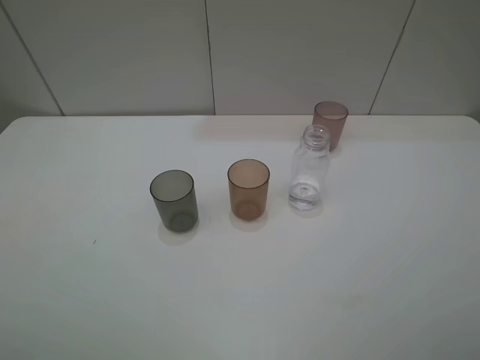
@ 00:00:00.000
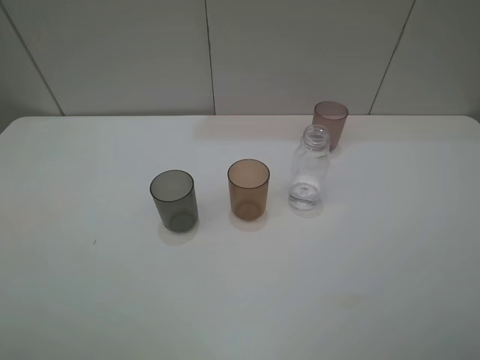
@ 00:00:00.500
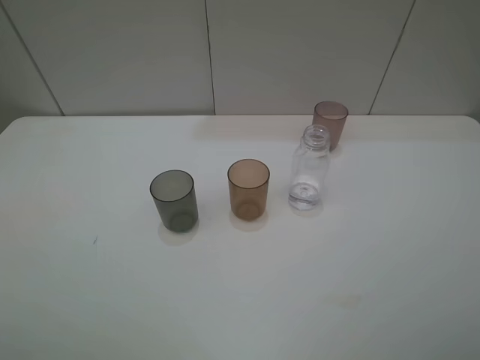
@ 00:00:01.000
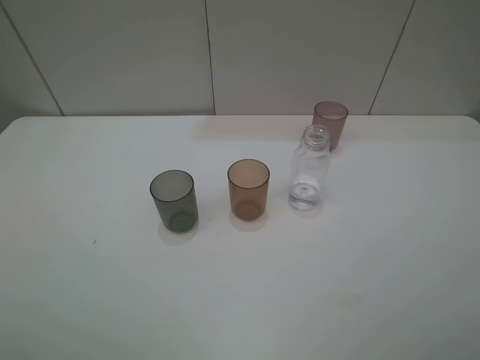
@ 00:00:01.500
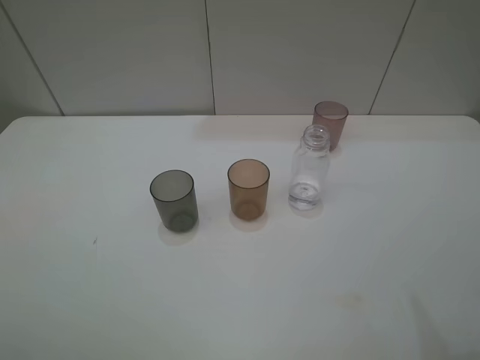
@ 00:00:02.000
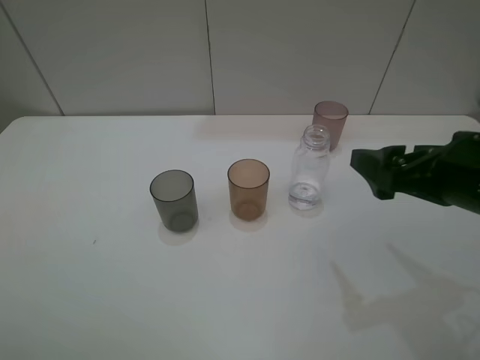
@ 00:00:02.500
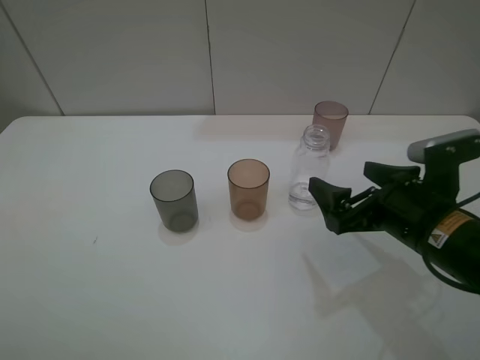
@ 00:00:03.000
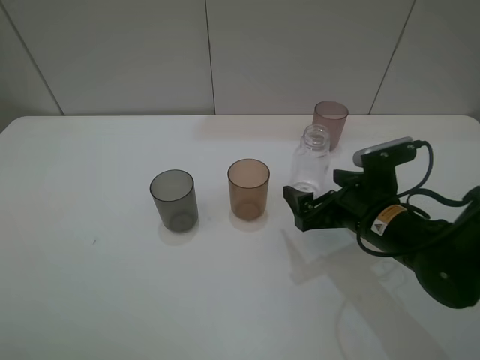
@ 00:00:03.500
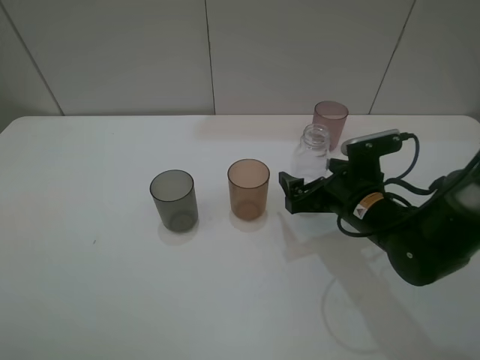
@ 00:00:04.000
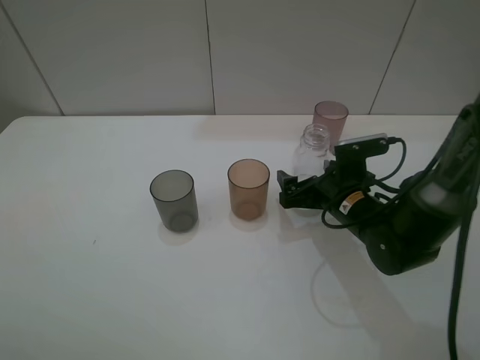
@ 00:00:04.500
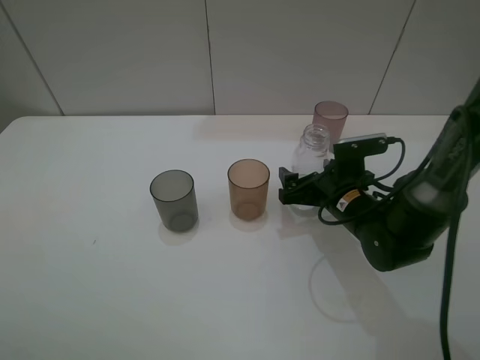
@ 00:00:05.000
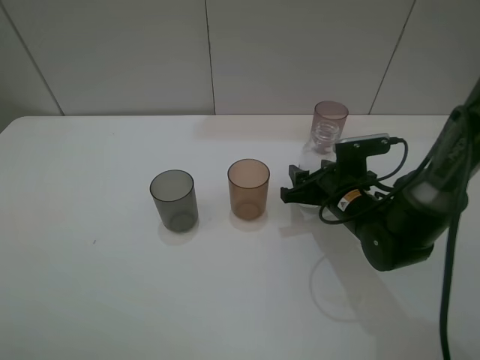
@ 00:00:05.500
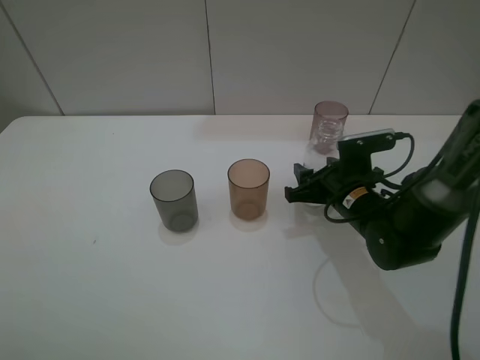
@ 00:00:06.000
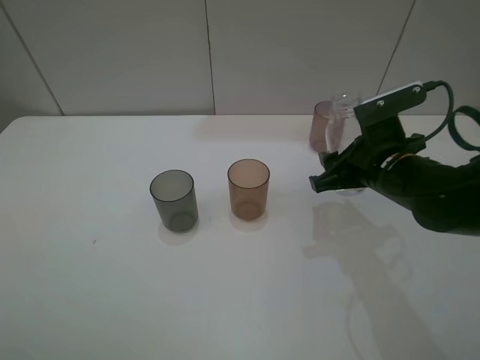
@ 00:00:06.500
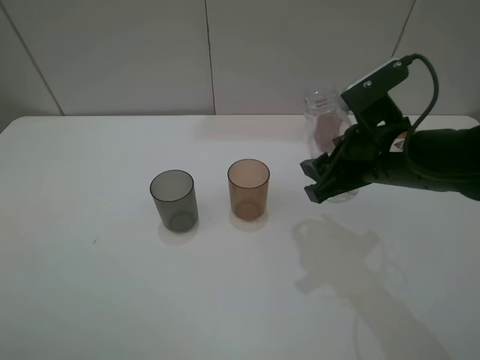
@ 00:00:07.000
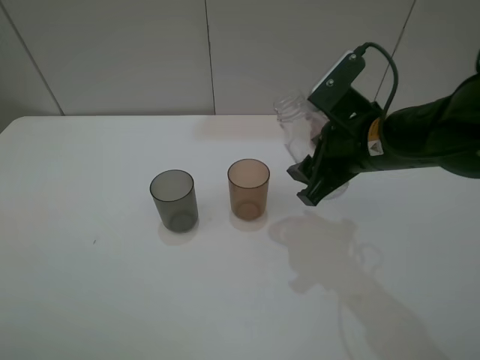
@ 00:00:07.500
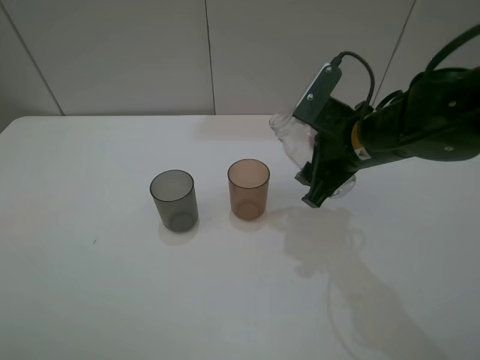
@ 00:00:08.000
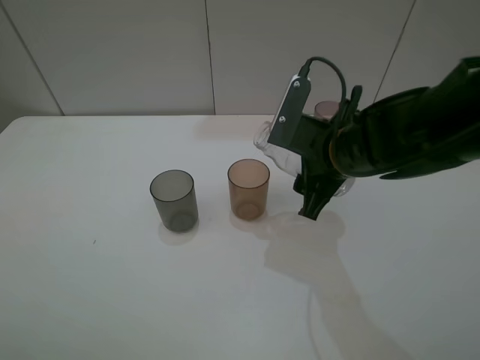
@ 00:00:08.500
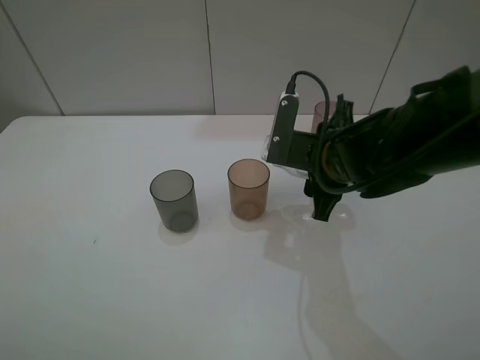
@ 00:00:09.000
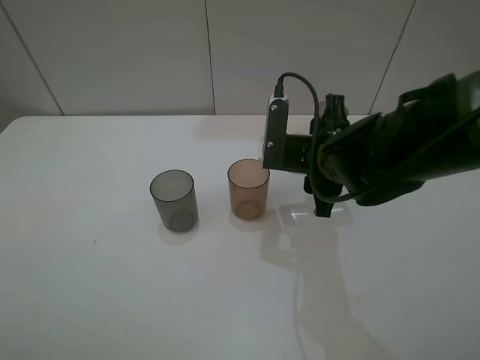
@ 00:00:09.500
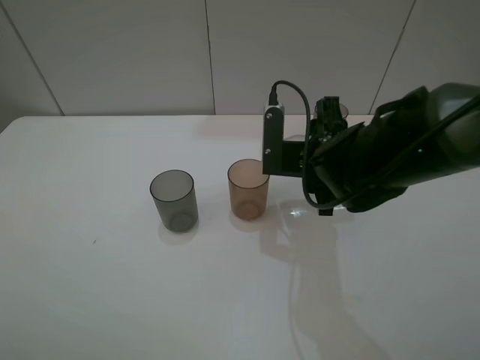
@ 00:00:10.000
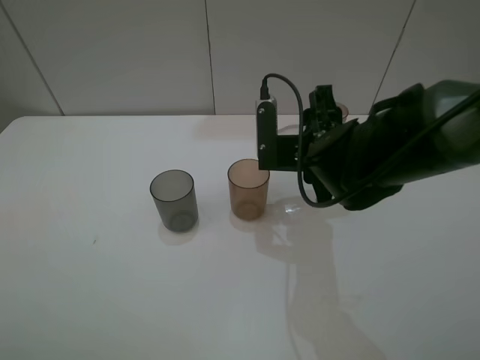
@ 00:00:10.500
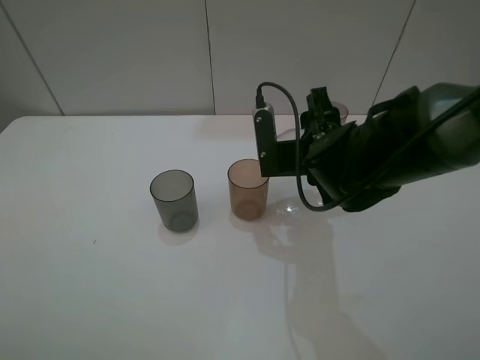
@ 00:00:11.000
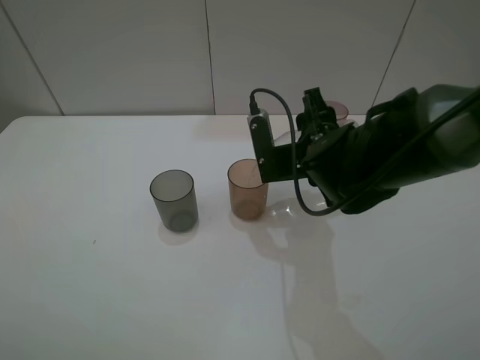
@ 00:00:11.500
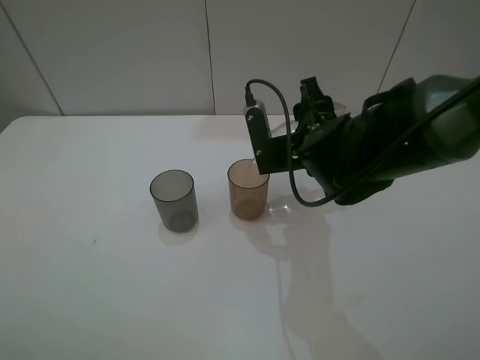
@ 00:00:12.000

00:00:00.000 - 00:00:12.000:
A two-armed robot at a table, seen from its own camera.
Task of the whole recording: pick up the bottle filled with water and pour water into the middle cup of the three cups.
Step, 00:00:00.000 - 00:00:05.500: Grasp the transparent bottle with the right gripper.
Step, 00:00:06.000 - 00:00:11.000: Pour water from transparent bottle tobrown cup with the right gripper.
00:00:02.000 - 00:00:04.000: The right gripper travels downward, forward and to the left by about 30 cm.
00:00:04.000 - 00:00:06.000: The right gripper closes.
00:00:06.000 - 00:00:08.000: The right gripper is displaced upward by some 10 cm.
00:00:10.000 - 00:00:12.000: There are only small adjustments of the grippers.

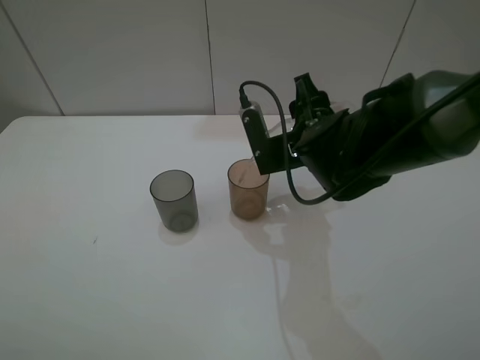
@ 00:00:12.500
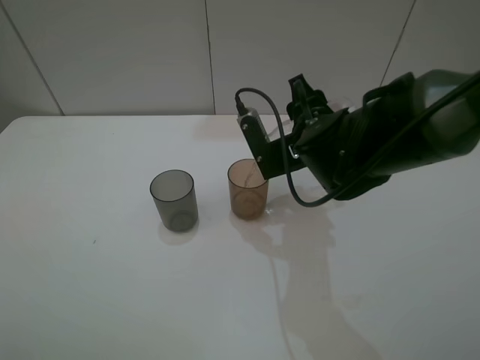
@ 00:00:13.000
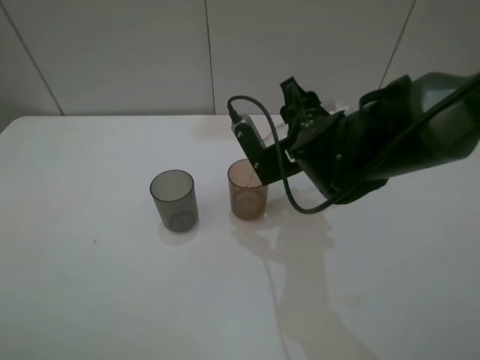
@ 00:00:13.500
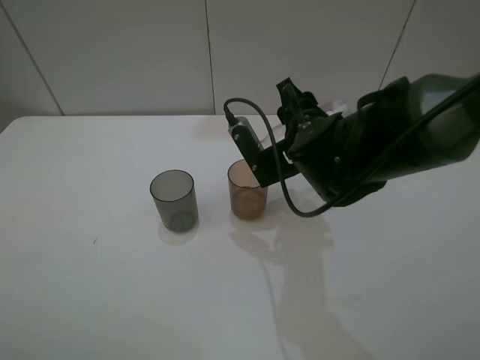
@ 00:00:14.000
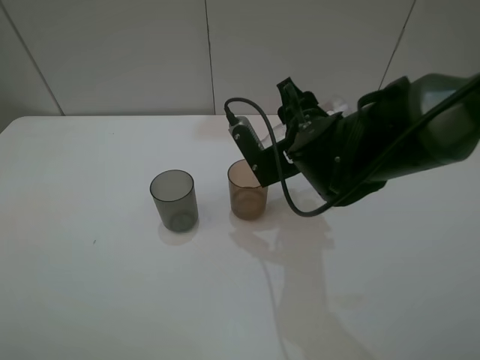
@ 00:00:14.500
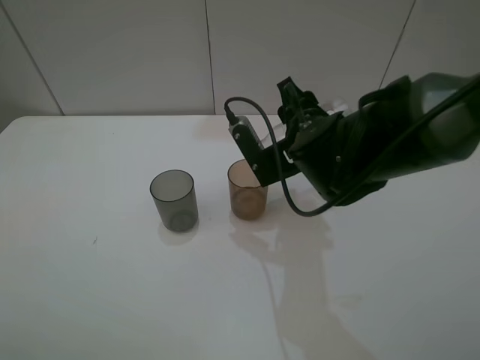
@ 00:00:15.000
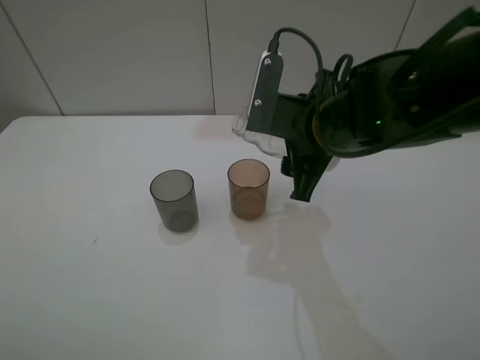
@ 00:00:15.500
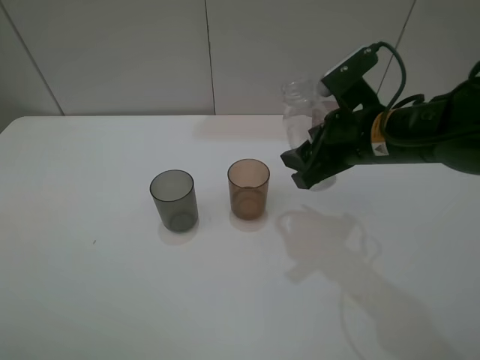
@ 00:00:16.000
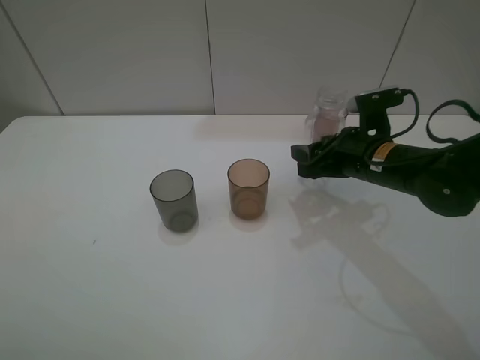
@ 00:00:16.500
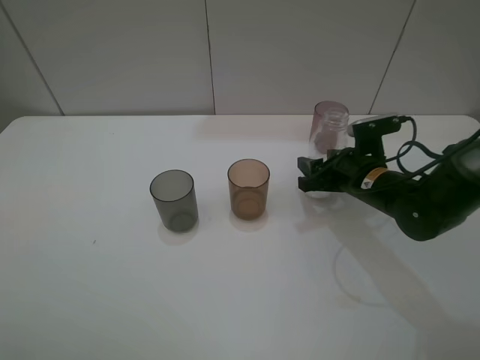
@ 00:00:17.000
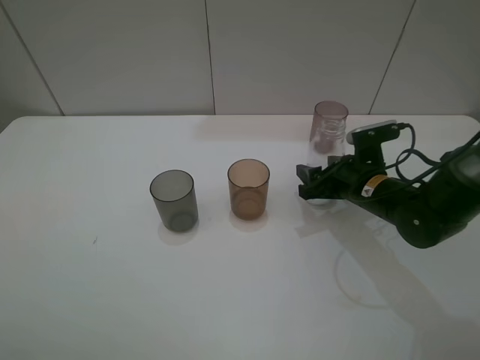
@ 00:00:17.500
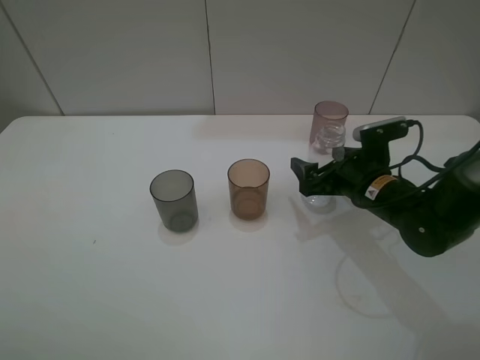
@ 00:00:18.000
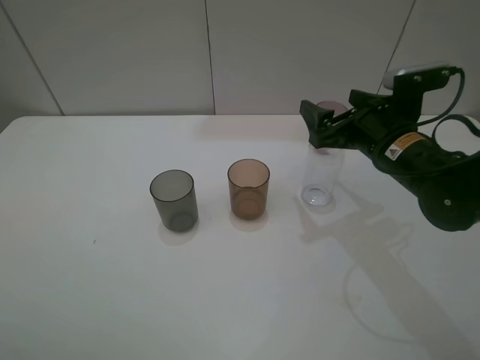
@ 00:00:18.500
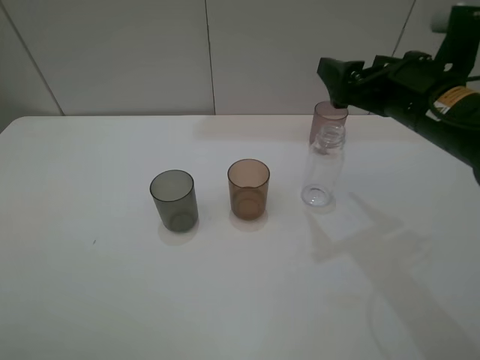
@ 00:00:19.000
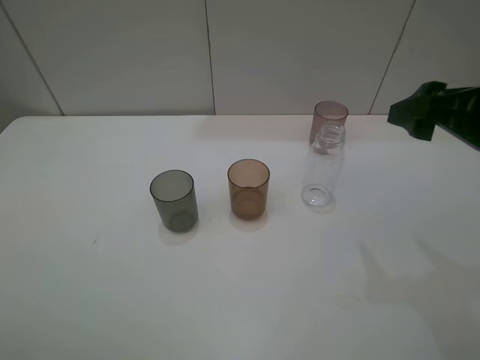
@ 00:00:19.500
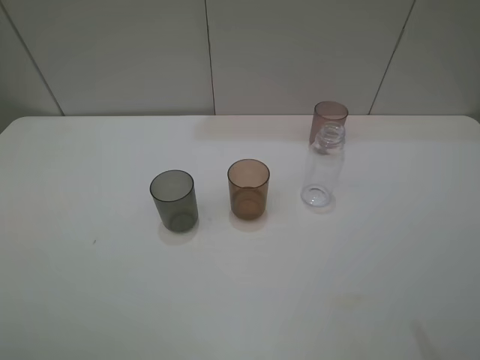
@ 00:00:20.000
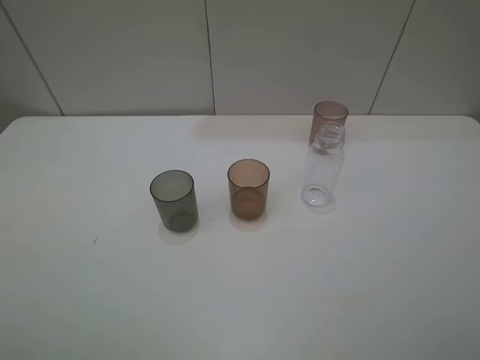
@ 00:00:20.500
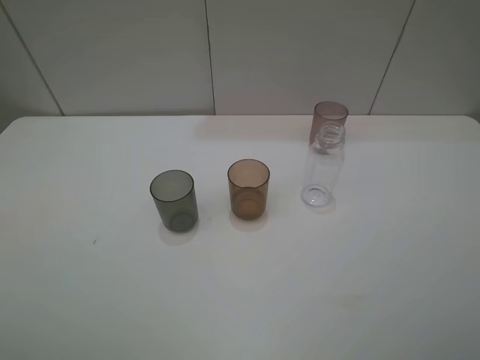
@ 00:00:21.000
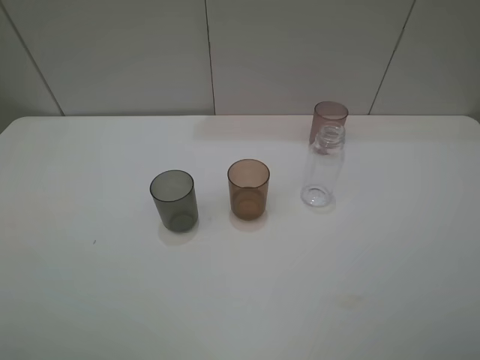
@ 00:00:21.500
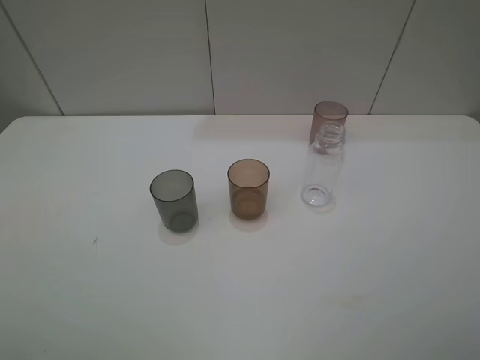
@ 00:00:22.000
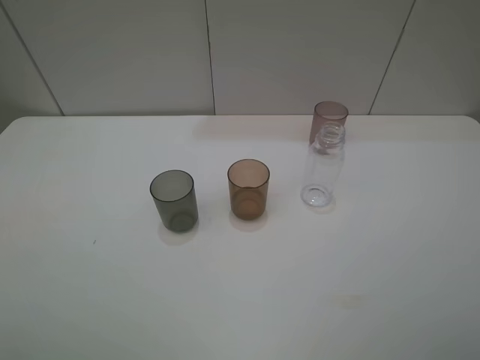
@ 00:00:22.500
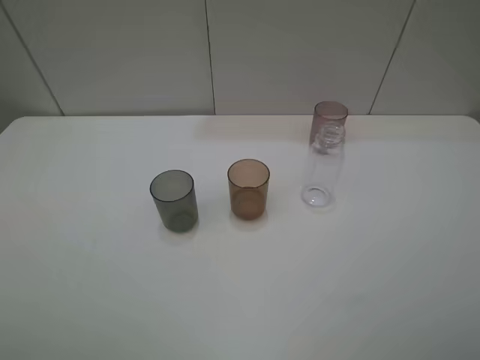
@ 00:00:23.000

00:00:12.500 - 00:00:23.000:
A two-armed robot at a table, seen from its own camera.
Task of the whole recording: pick up the bottle filled with water and pour water into the middle cup of the three cups.
Step, 00:00:12.500 - 00:00:18.000: Place the transparent bottle with the right gripper.
00:00:12.500 - 00:00:14.500: The grippers make only small movements.
00:00:14.500 - 00:00:16.500: The right gripper goes some 10 cm to the right and downward.
00:00:16.500 - 00:00:19.000: The right gripper goes roughly 10 cm upward, and opens its fingers.
00:00:19.000 - 00:00:21.000: The right gripper goes about 25 cm backward.
